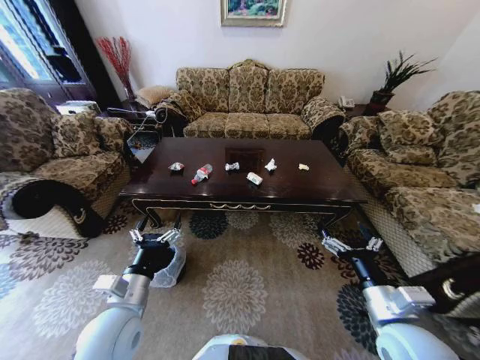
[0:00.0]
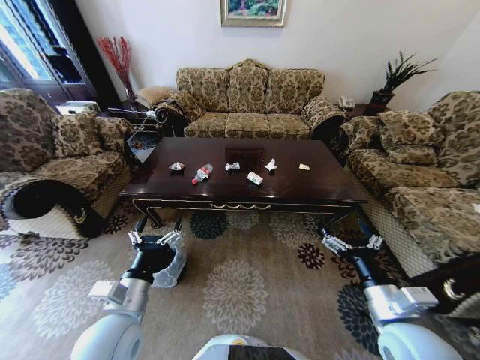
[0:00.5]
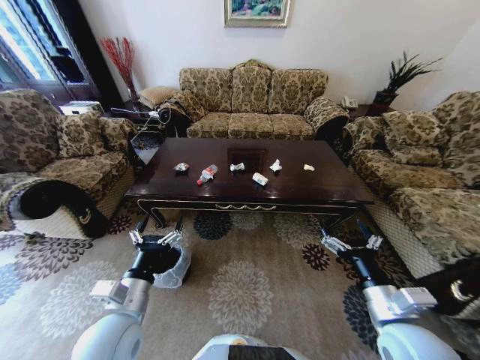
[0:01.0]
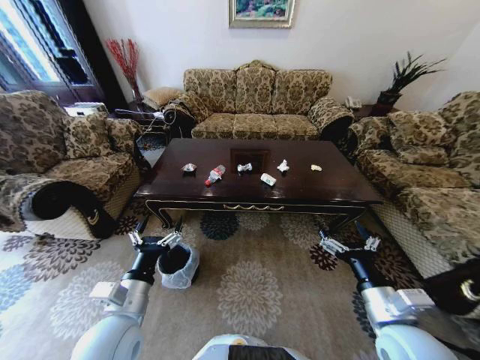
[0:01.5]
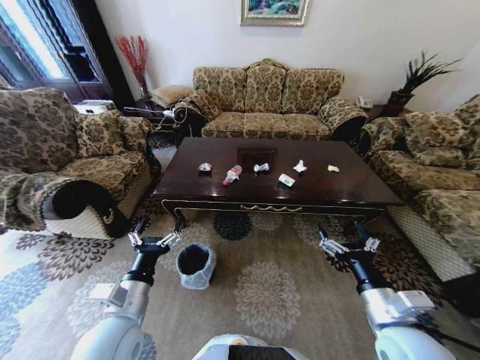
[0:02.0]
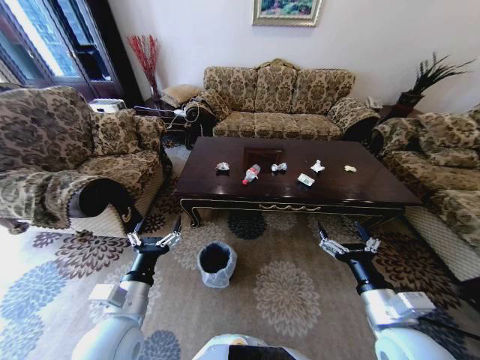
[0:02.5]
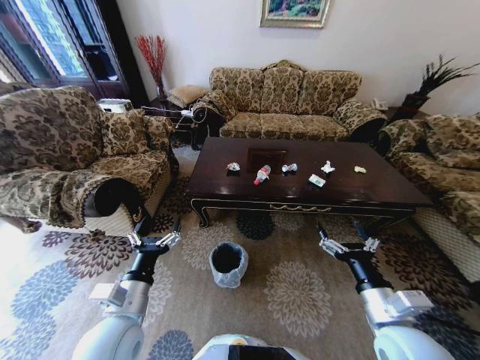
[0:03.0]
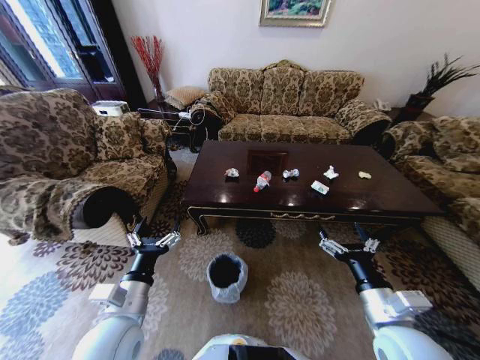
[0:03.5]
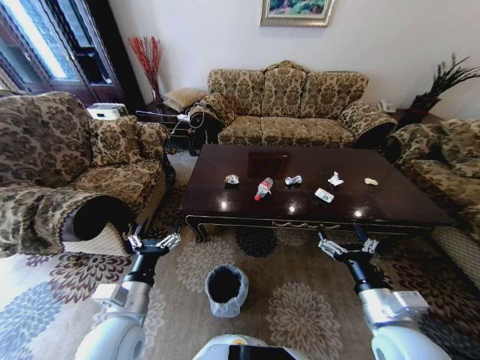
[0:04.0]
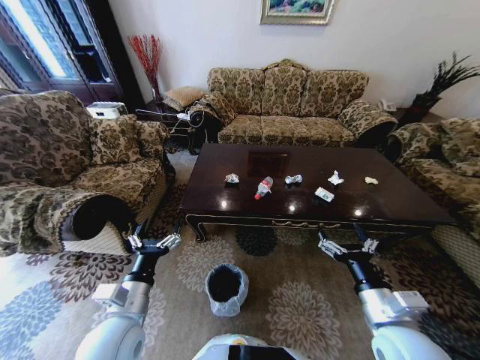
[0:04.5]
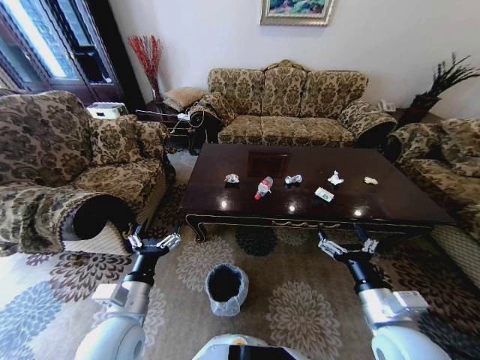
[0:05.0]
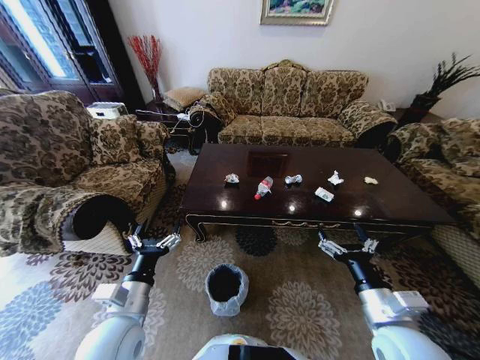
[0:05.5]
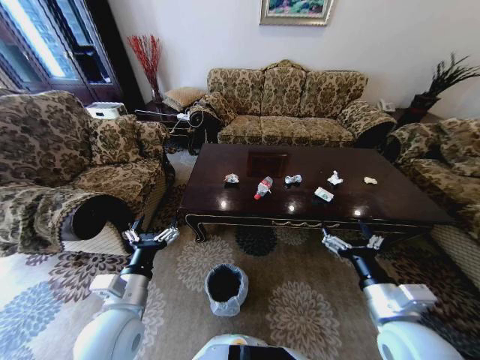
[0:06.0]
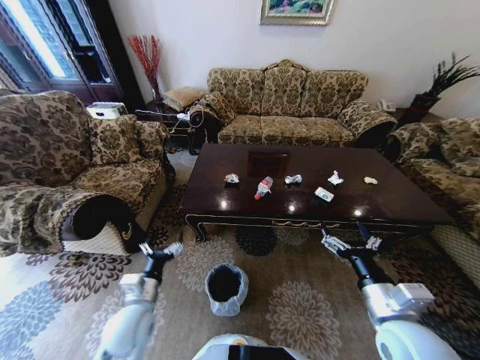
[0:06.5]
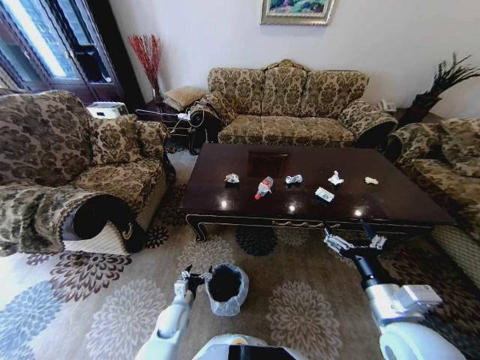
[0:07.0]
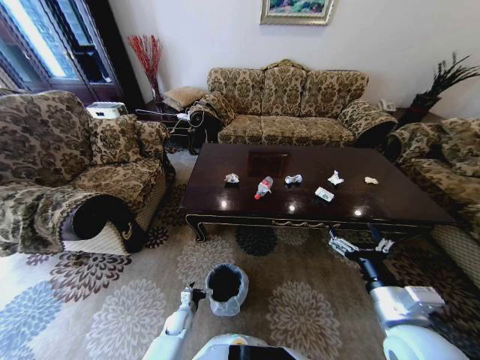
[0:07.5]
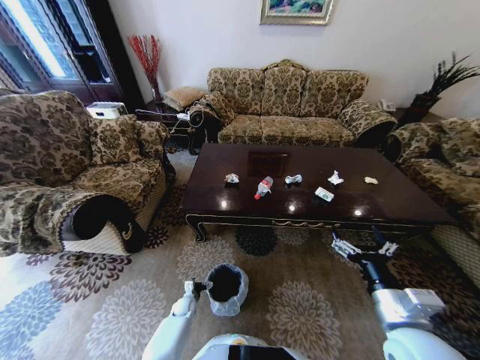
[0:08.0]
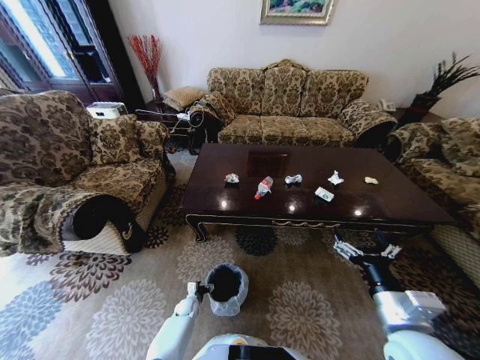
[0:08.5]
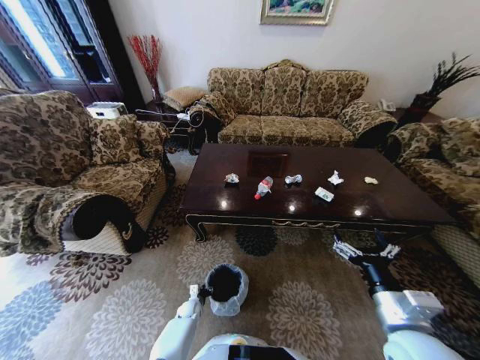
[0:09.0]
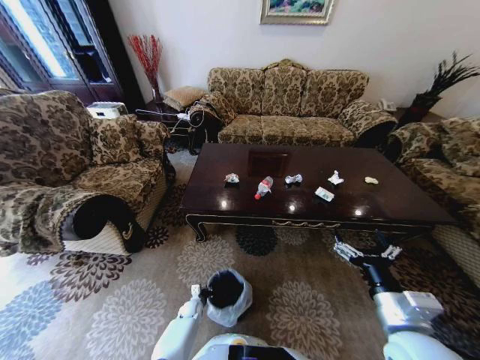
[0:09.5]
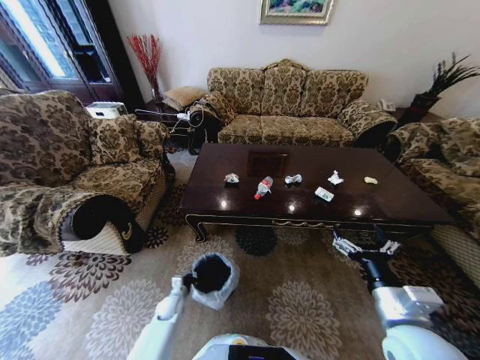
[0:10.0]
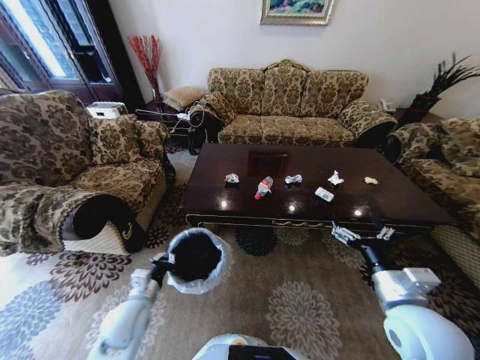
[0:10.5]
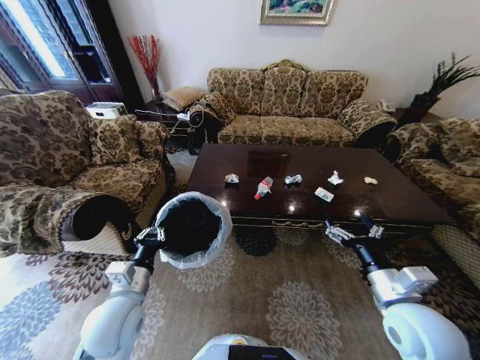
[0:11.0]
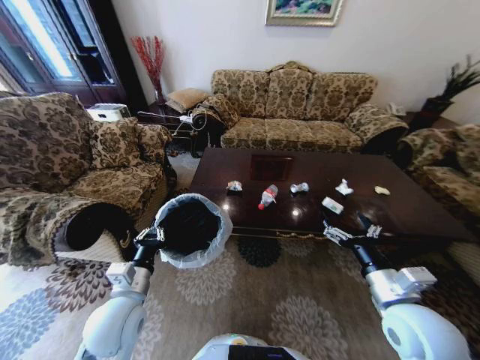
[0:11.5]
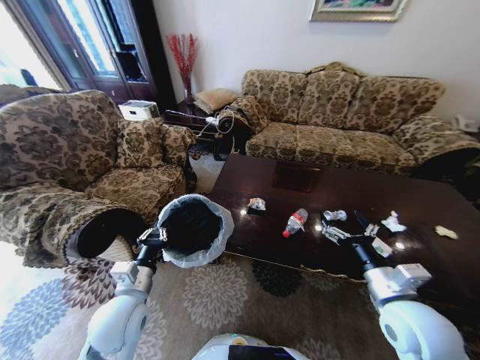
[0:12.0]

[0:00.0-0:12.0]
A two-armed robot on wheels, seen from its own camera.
Task of the whole recording: Move to the front of the table and place the trash on the table into the trash bin.
0:04.0 to 0:06.0: The grippers make only small movements.
0:06.0 to 0:08.0: The left gripper moves downward, about 40 cm.
0:08.0 to 0:10.0: The left gripper heads upward, covering some 10 cm, and closes its fingers.
0:10.0 to 0:12.0: The left gripper goes approximately 30 cm upward.

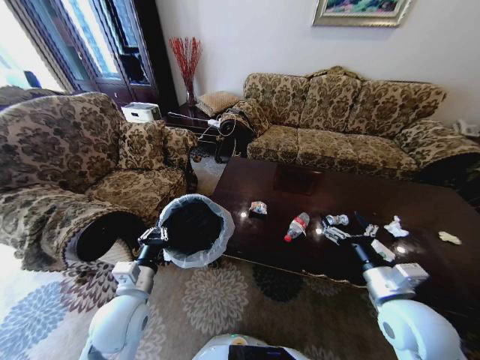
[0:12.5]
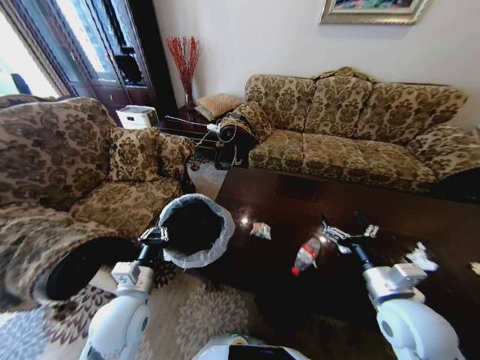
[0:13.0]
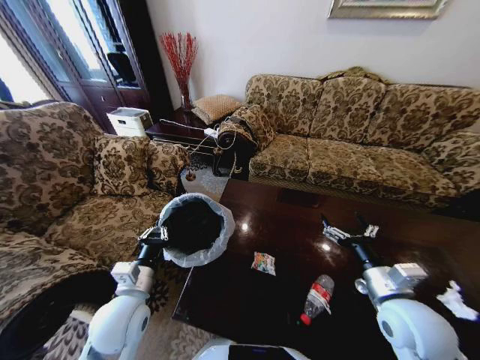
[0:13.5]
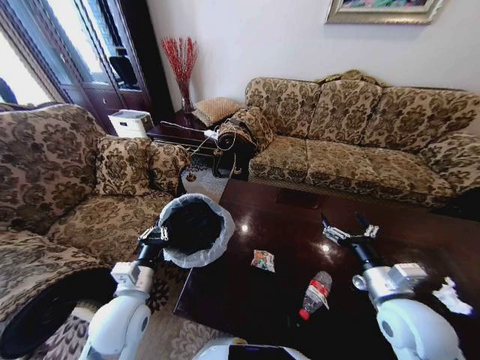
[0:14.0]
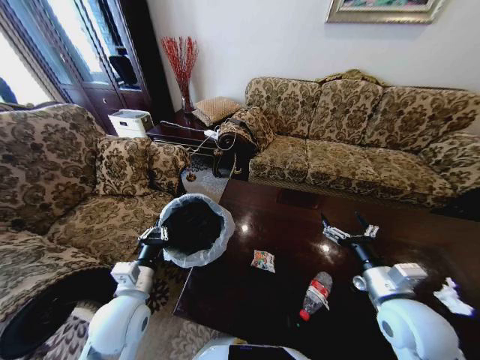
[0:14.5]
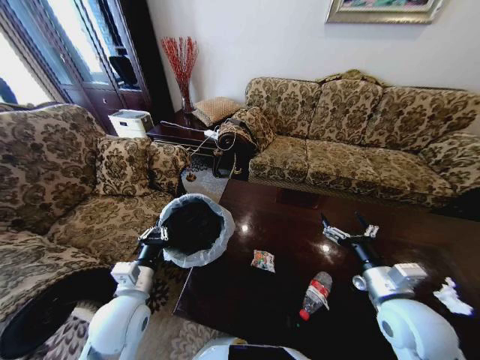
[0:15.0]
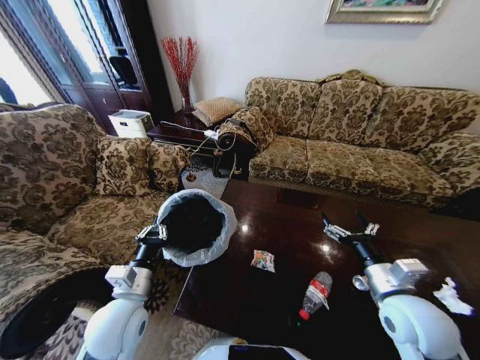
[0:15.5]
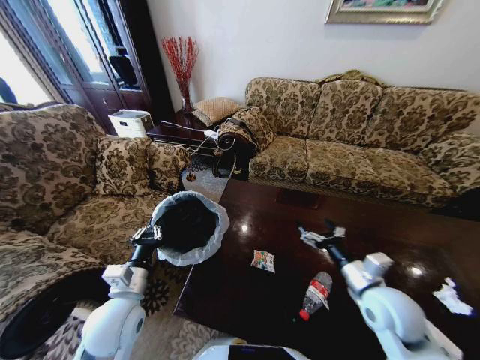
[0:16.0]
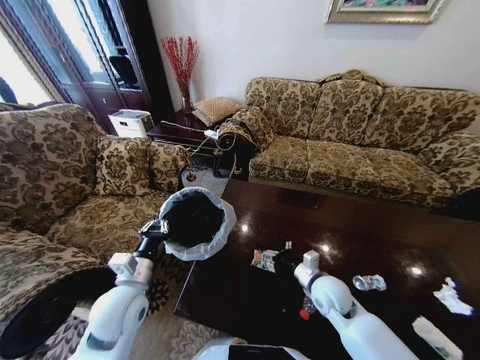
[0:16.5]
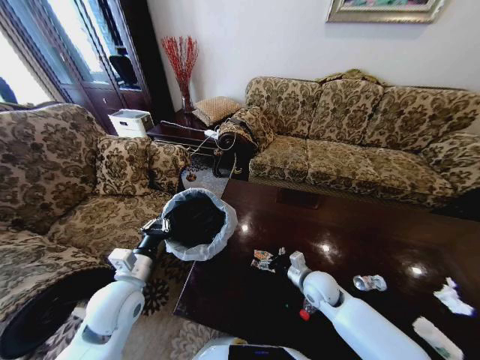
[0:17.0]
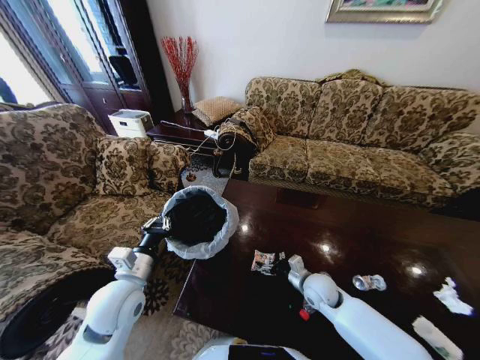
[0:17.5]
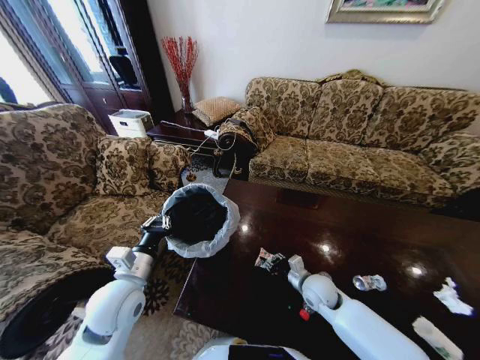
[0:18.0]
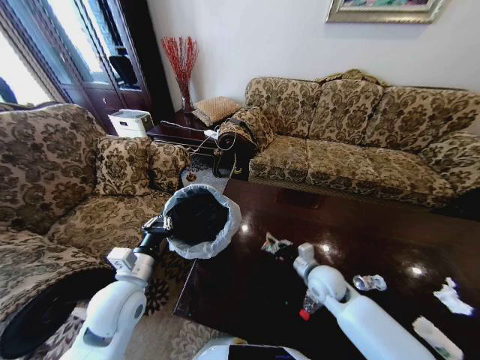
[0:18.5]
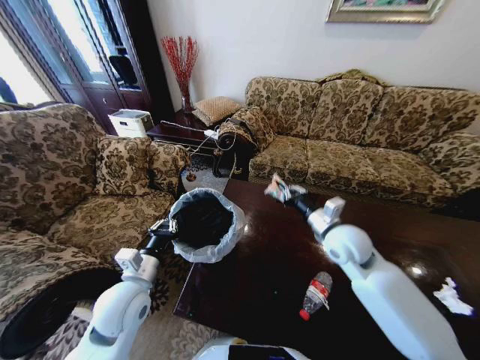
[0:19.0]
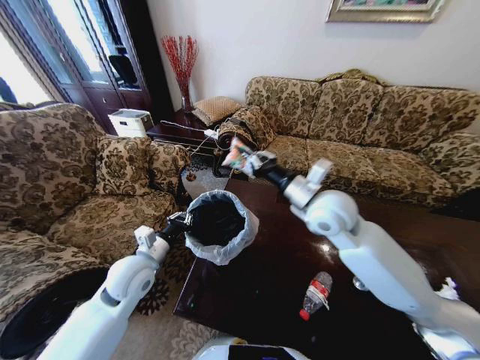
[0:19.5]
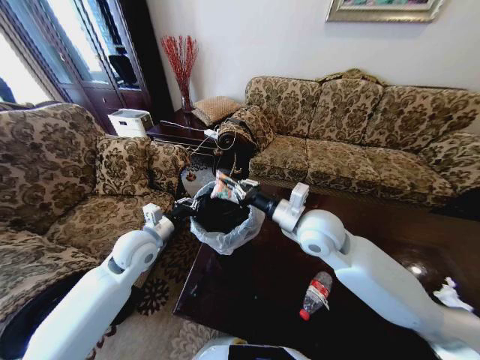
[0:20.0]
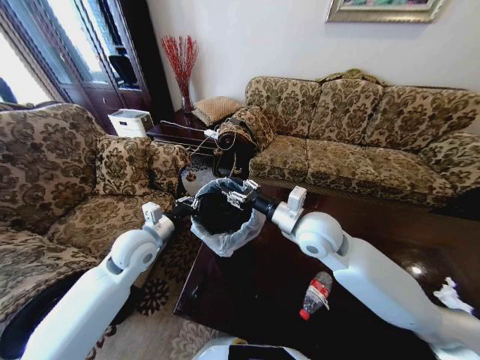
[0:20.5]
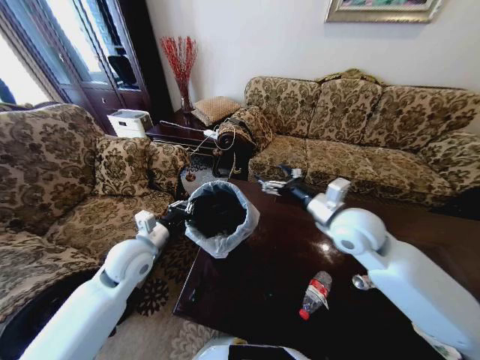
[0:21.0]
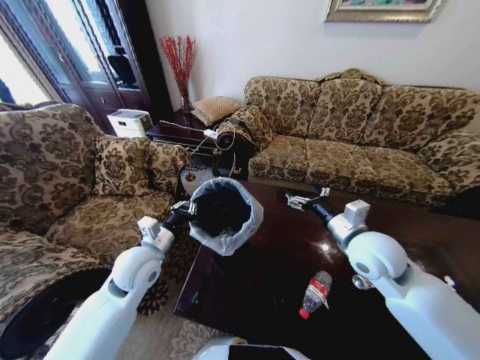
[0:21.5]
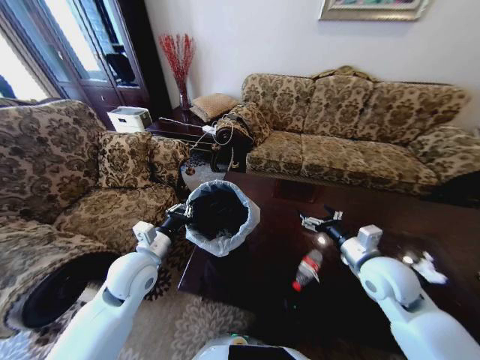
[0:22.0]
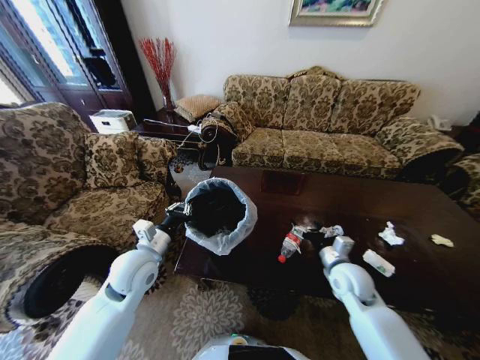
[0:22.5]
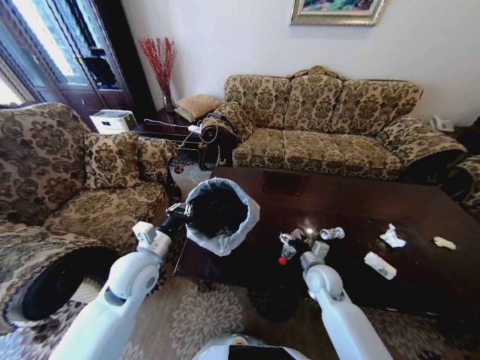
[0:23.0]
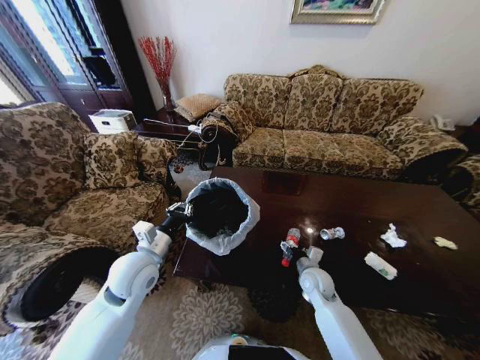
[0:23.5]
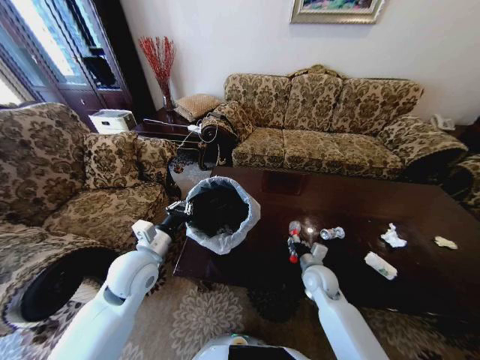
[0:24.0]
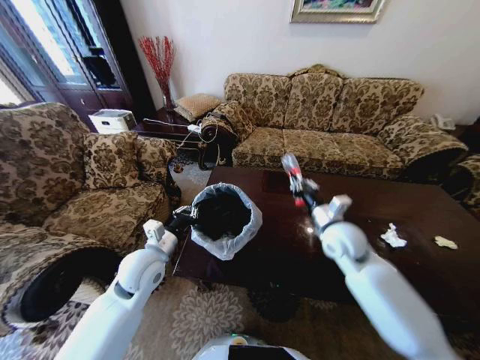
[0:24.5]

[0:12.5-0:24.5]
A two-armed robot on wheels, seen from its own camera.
Task of the whole recording: Move to the front of the table and place the trash on the table into the trash bin.
0:14.5 to 0:16.5: The right gripper heads downward, forward and to the left, covering roughly 15 cm.
0:16.5 to 0:18.5: The right gripper closes.
0:18.5 to 0:20.5: The left gripper goes some 10 cm forward. Meanwhile the right gripper travels upward by about 20 cm, and opens its fingers.
0:20.5 to 0:22.5: The right gripper goes roughly 20 cm downward and to the right, and opens.
0:22.5 to 0:24.5: The right gripper moves upward and forward, approximately 10 cm, and closes up.

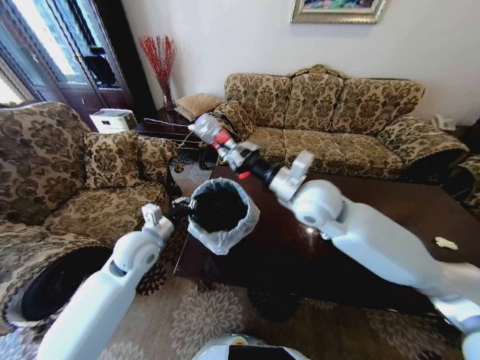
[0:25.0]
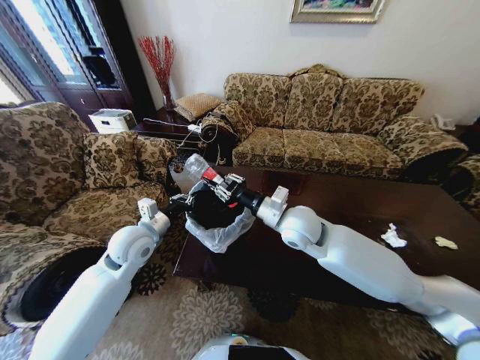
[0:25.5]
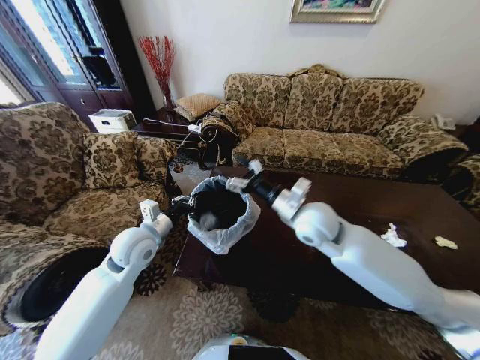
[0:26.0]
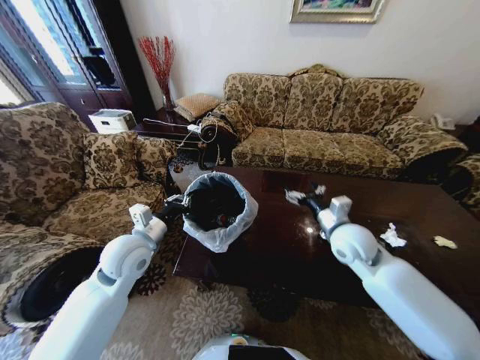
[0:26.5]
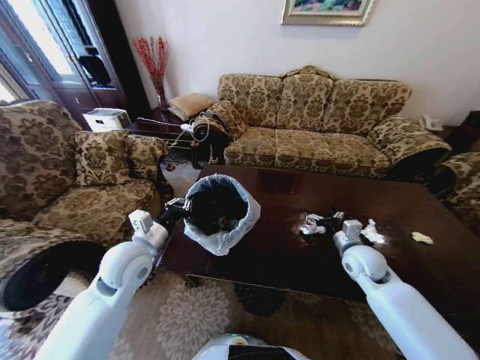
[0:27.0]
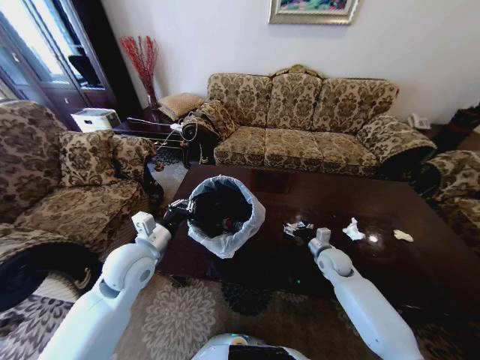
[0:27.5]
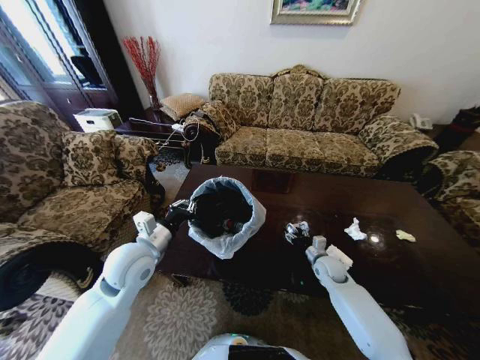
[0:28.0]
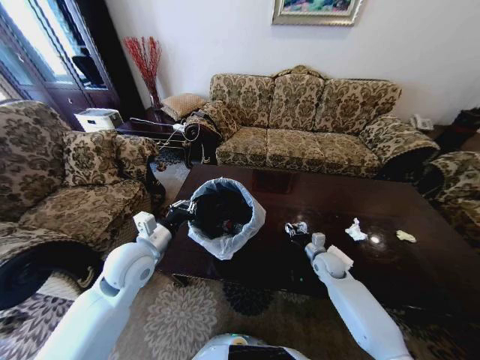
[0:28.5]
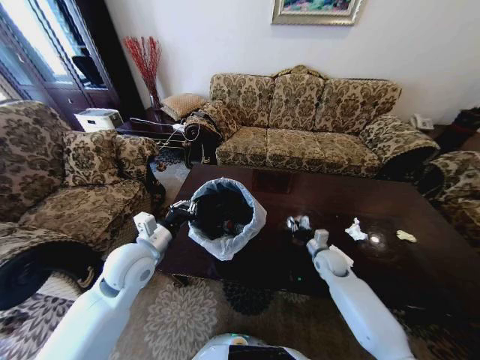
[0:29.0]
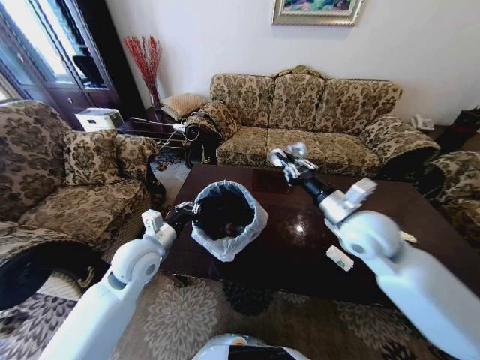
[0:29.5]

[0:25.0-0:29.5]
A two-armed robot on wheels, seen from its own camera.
Task of the whole recording: Move to the front of the table and place the trash on the table into the trash bin.
0:25.0 to 0:27.0: The right gripper moves downward and to the right, roughly 30 cm, and opens its fingers.
0:27.0 to 0:29.5: The right gripper heads upward and to the left, covering roughly 15 cm, and closes.
